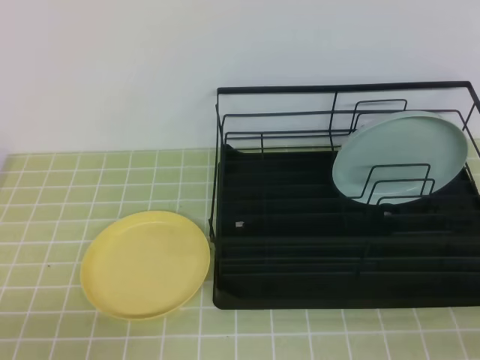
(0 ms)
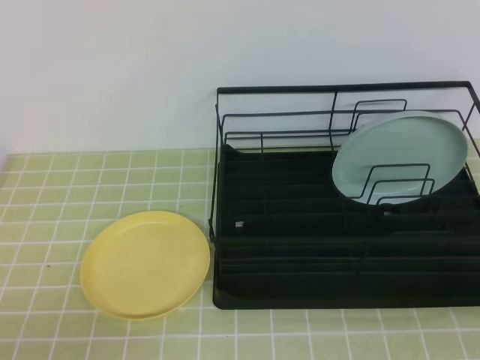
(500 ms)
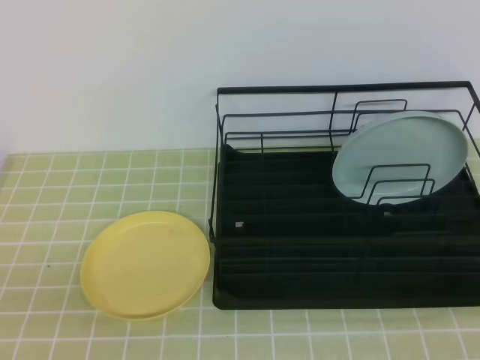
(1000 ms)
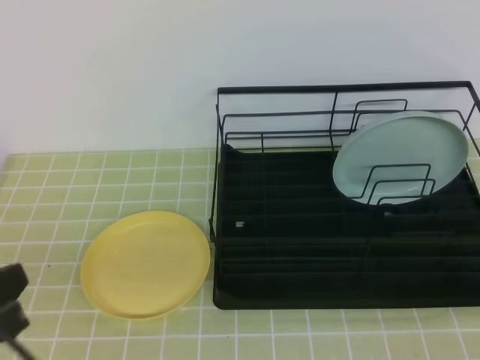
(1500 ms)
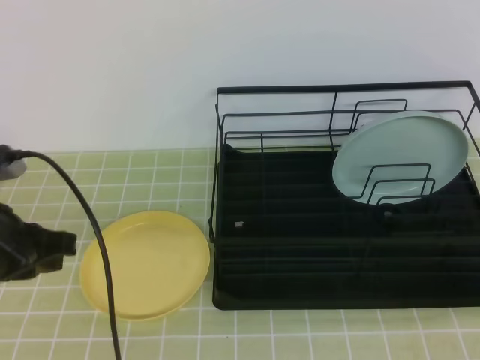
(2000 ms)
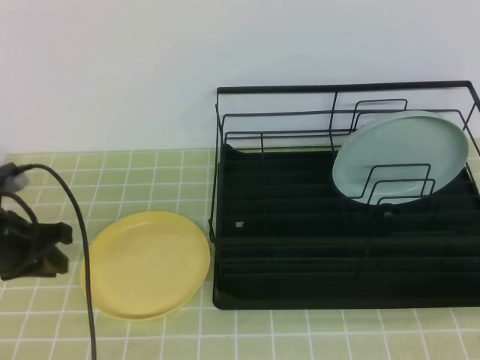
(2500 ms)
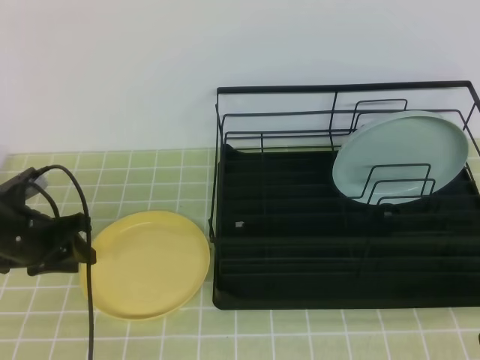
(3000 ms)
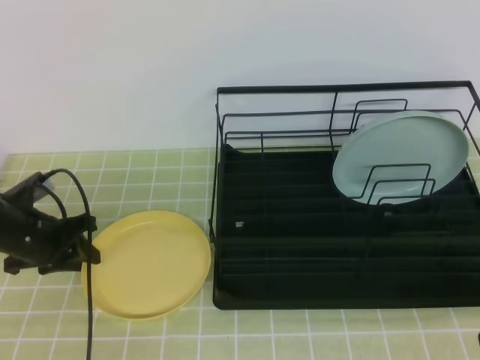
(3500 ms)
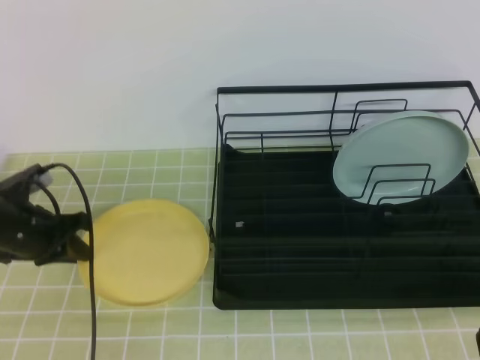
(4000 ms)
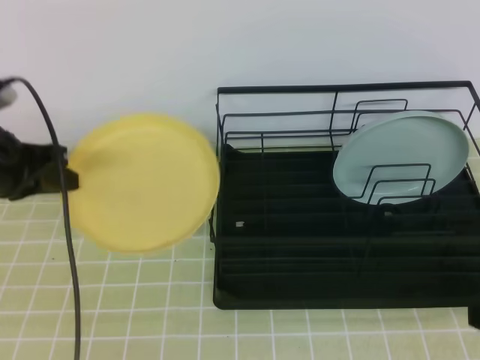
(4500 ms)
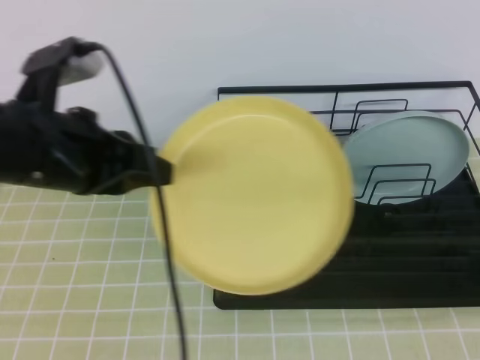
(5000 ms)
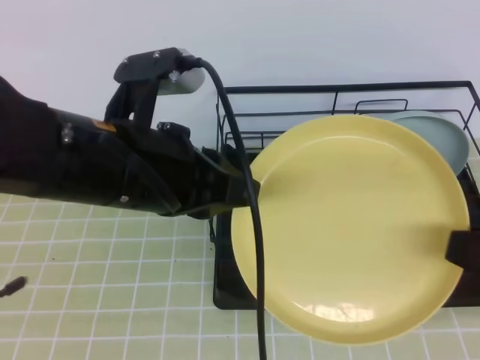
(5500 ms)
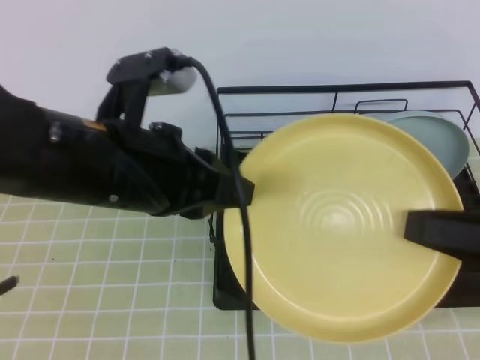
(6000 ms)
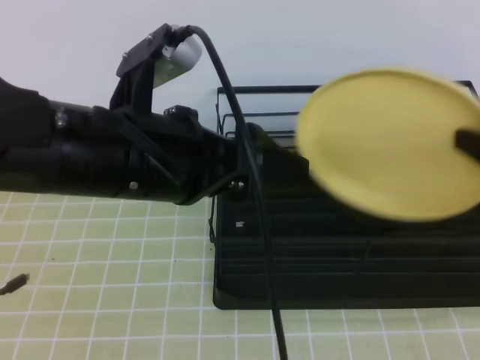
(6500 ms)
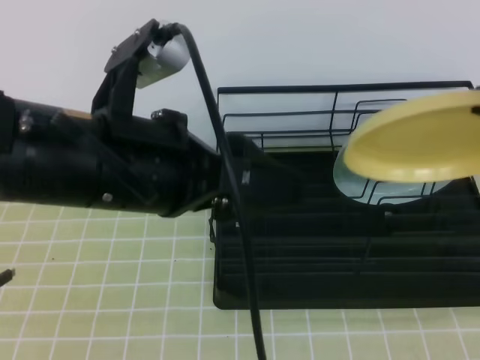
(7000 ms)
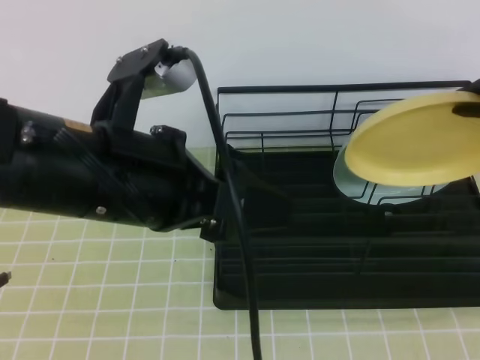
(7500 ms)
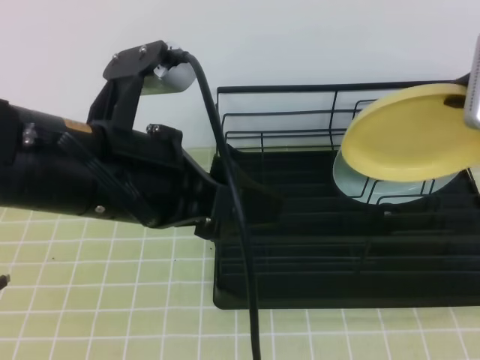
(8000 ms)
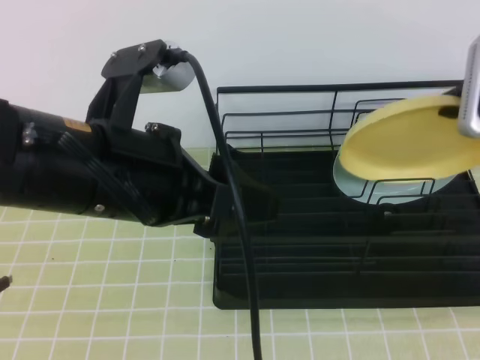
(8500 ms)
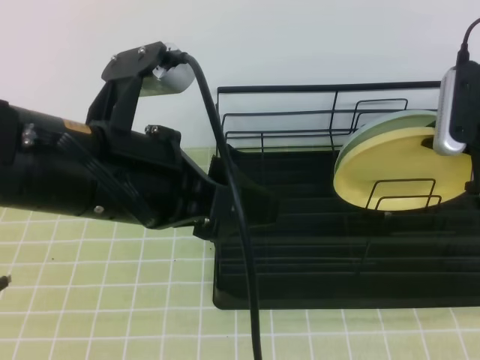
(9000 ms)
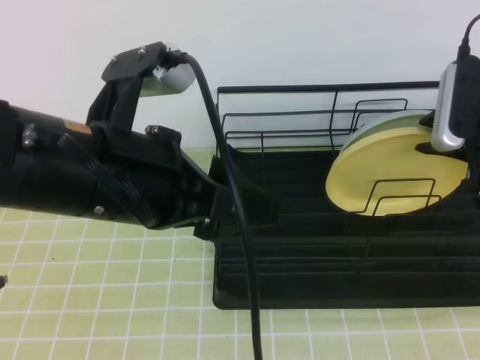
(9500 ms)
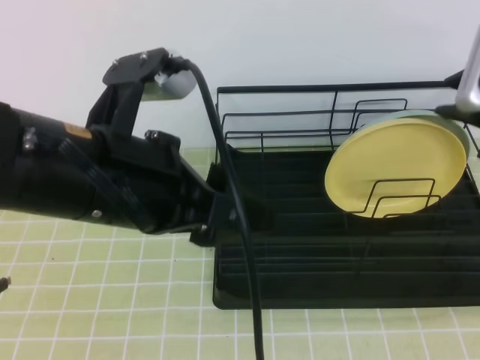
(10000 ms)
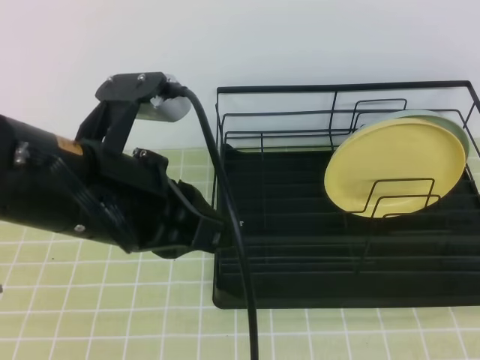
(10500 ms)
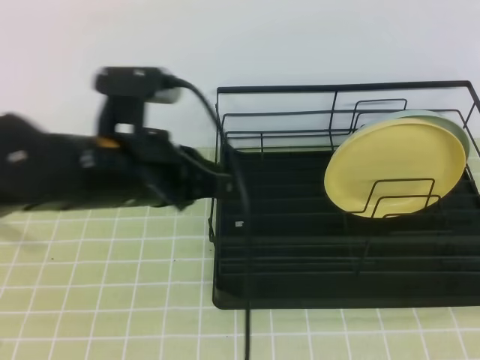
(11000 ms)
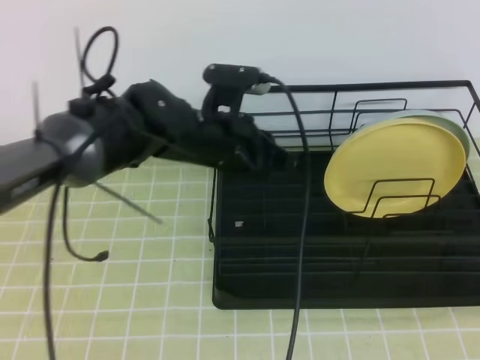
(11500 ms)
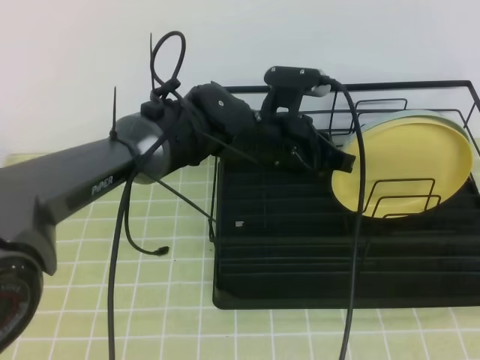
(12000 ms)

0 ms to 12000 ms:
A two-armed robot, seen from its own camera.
0 ms to 2000 ms: The left gripper goes some 20 cm forward and upward, while the right gripper heads upward, covering some 10 cm.
2000 ms to 4000 ms: The left gripper heads forward and downward, covering some 15 cm, and opens, then closes once more.
4000 ms to 6000 ms: The left gripper shifts roughly 30 cm upward, to the right and backward. Meanwhile the right gripper heads forward, covering some 5 cm, and opens its fingers.
6000 ms to 8000 ms: The left gripper opens its fingers; the right gripper moves forward, about 15 cm.
8000 ms to 10000 ms: The right gripper opens.
10000 ms to 12000 ms: The left gripper is displaced forward, to the right and downward by some 25 cm, and closes up; the right gripper shifts some 20 cm backward, and closes its fingers.

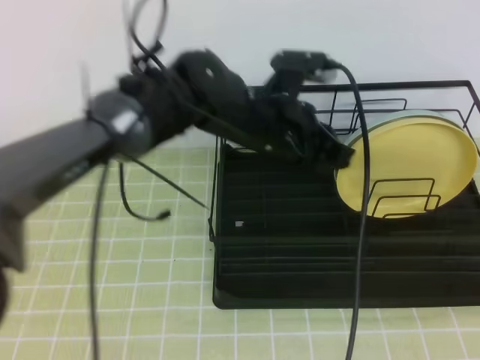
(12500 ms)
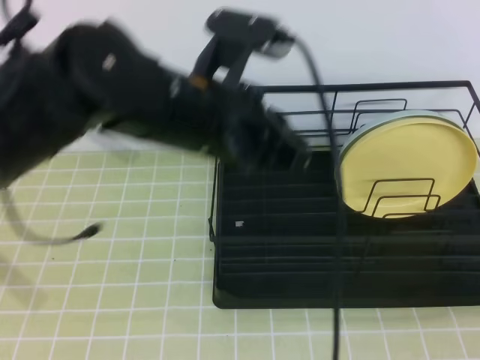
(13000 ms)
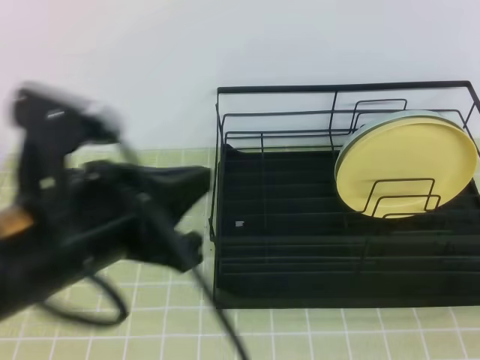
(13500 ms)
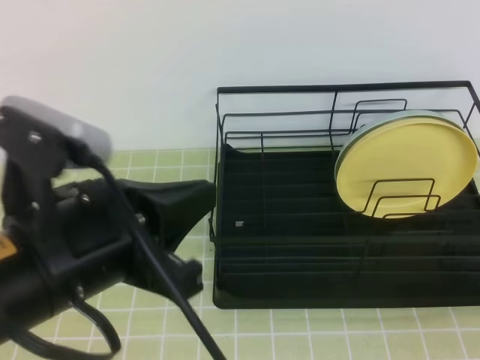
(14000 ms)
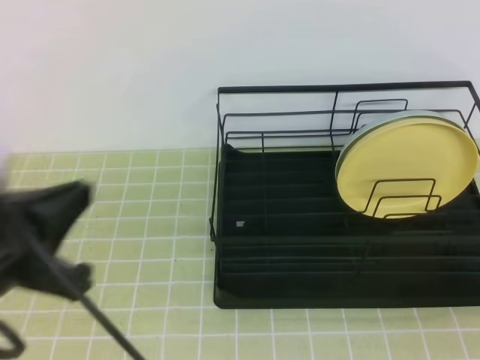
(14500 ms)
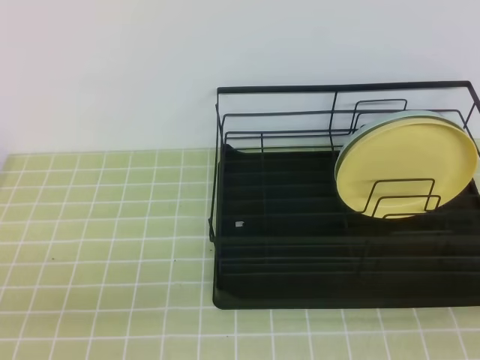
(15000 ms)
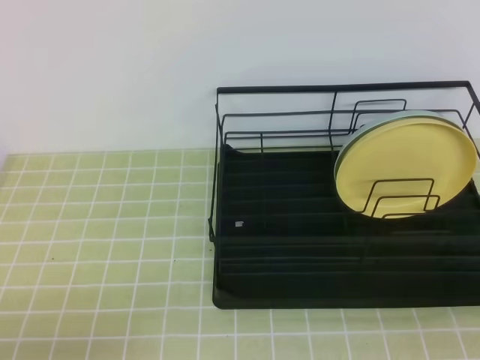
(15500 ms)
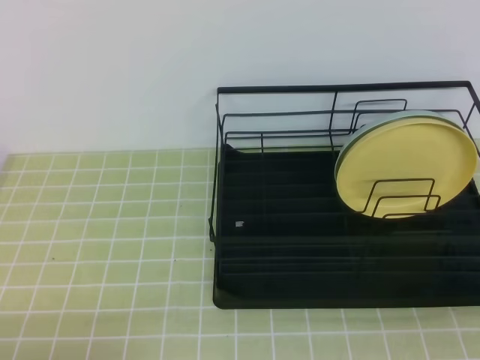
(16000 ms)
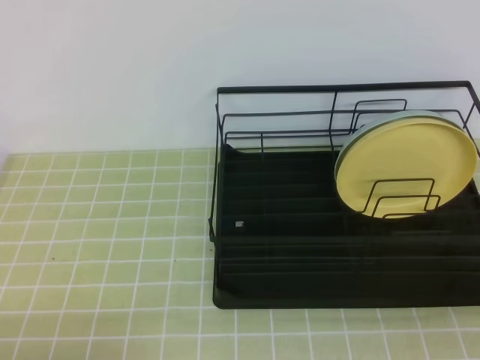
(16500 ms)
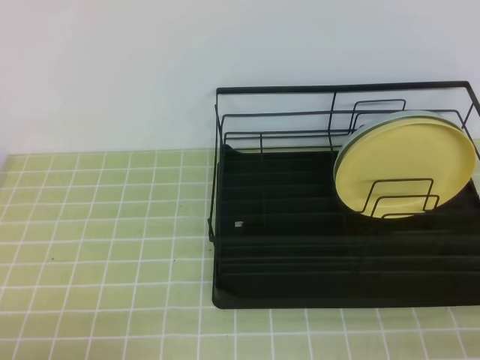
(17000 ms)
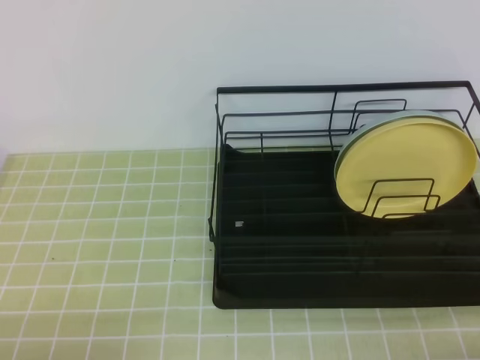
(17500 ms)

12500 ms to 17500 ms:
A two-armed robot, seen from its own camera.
12500 ms to 15000 ms: The right gripper moves downward and backward, some 15 cm. The left gripper is displaced backward and to the left by roughly 40 cm.
15000 ms to 17500 ms: The right gripper shifts some 5 cm downward.
